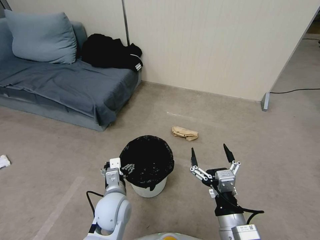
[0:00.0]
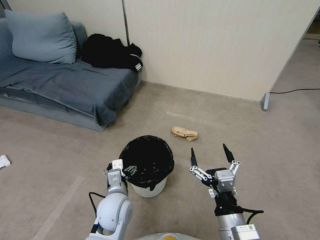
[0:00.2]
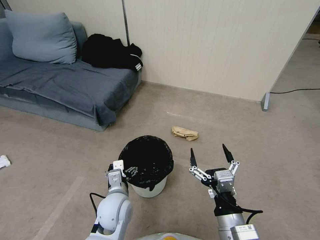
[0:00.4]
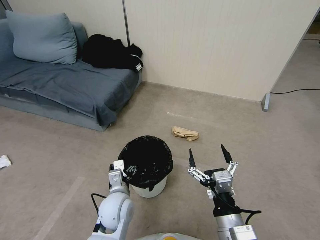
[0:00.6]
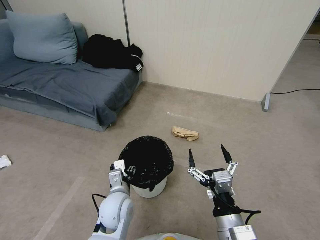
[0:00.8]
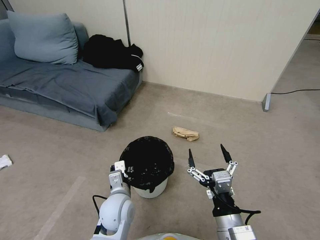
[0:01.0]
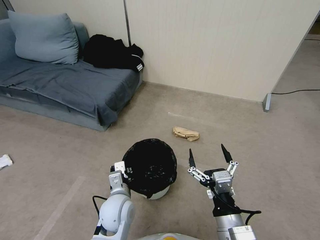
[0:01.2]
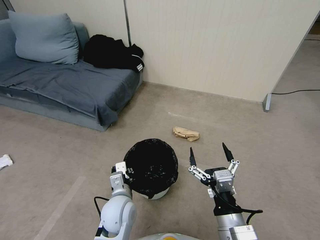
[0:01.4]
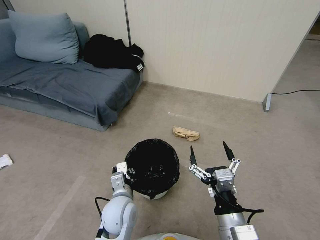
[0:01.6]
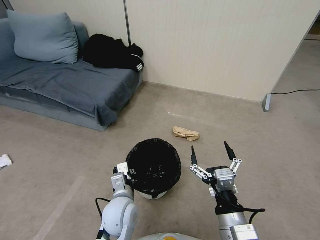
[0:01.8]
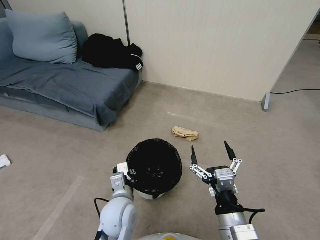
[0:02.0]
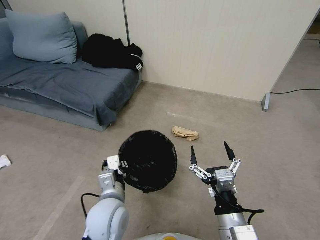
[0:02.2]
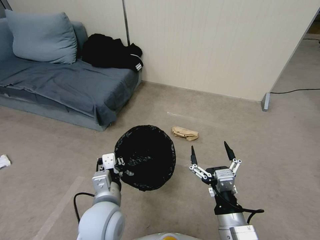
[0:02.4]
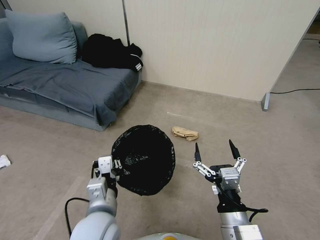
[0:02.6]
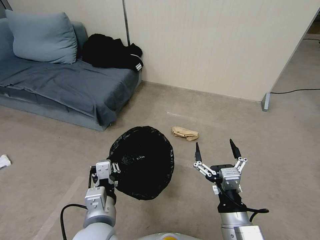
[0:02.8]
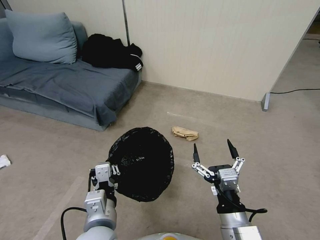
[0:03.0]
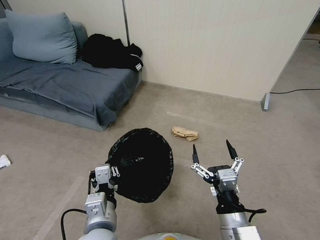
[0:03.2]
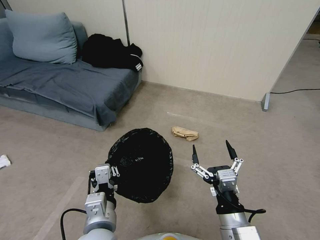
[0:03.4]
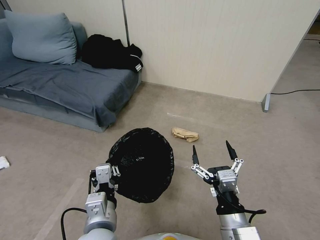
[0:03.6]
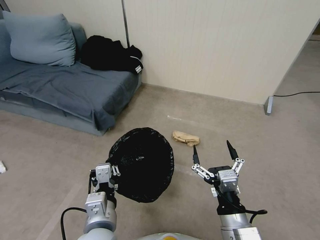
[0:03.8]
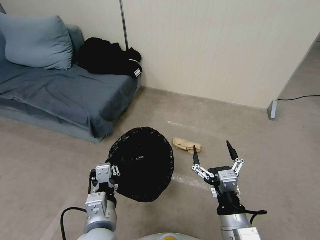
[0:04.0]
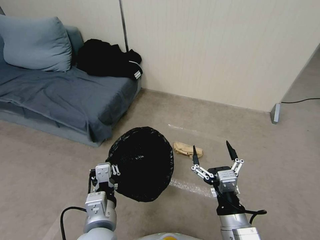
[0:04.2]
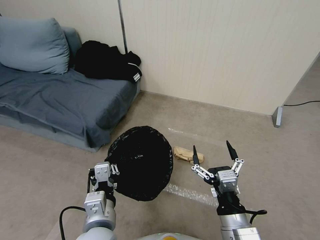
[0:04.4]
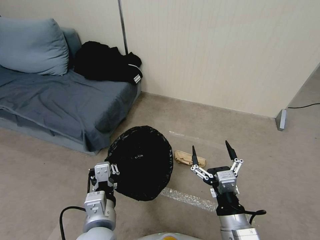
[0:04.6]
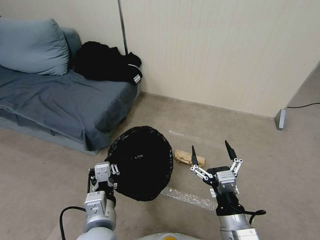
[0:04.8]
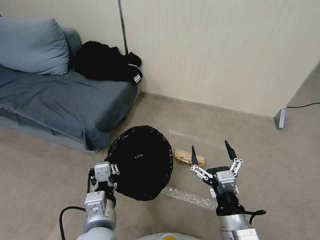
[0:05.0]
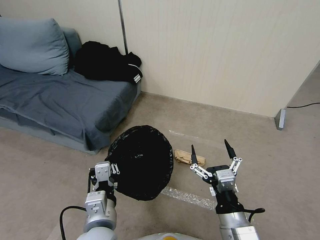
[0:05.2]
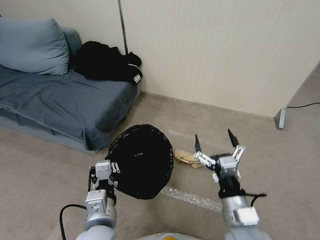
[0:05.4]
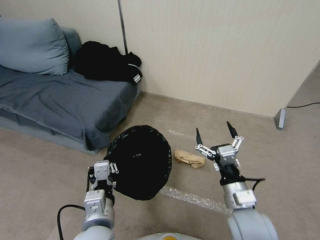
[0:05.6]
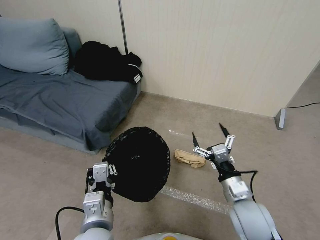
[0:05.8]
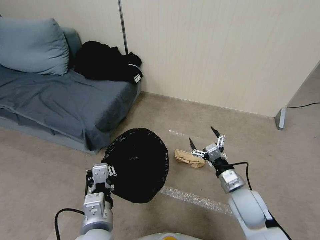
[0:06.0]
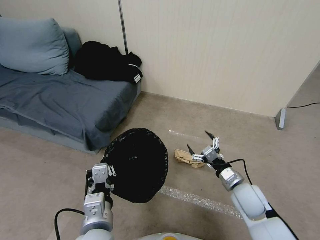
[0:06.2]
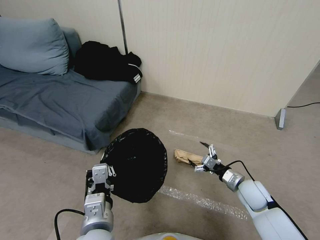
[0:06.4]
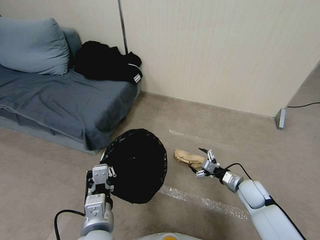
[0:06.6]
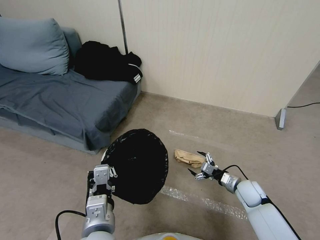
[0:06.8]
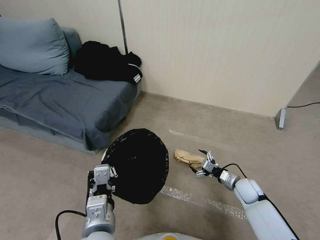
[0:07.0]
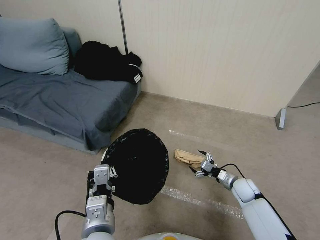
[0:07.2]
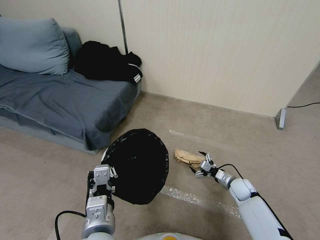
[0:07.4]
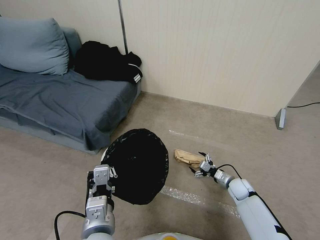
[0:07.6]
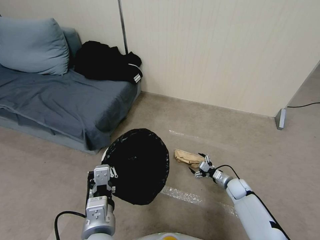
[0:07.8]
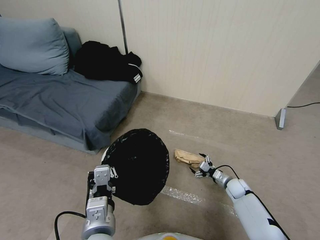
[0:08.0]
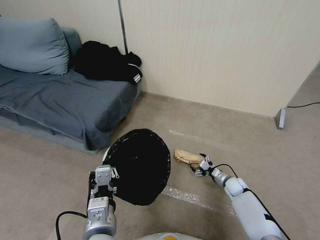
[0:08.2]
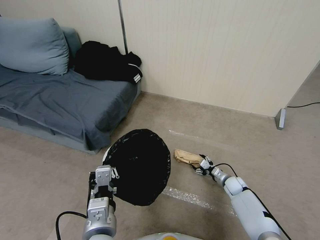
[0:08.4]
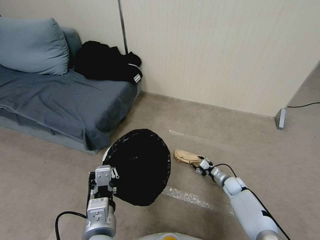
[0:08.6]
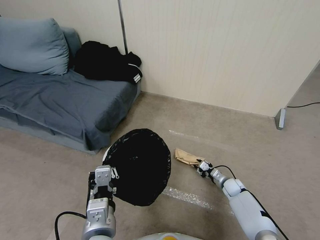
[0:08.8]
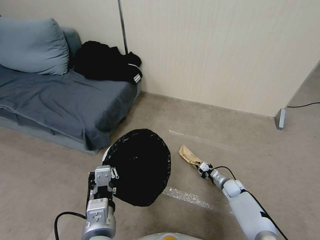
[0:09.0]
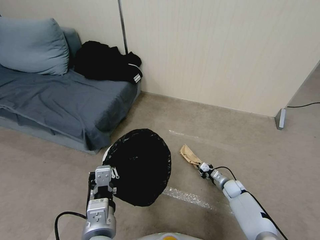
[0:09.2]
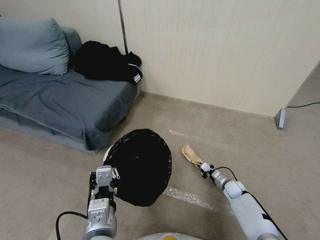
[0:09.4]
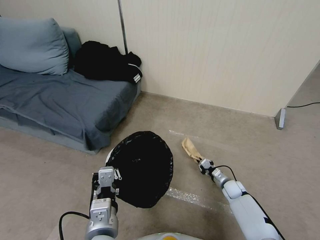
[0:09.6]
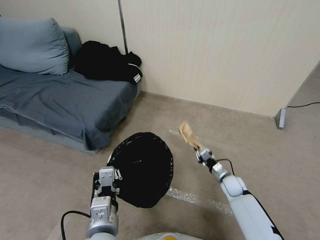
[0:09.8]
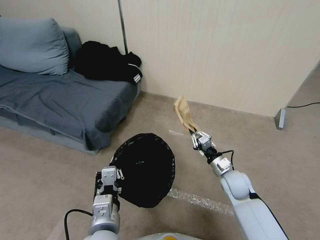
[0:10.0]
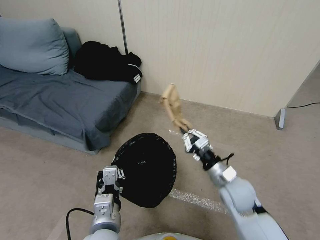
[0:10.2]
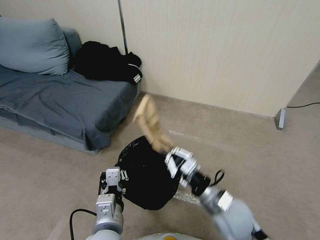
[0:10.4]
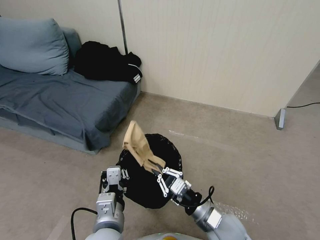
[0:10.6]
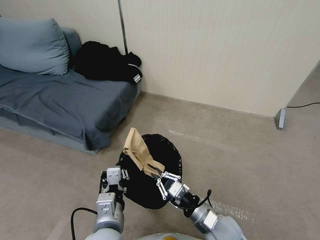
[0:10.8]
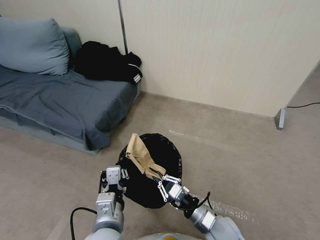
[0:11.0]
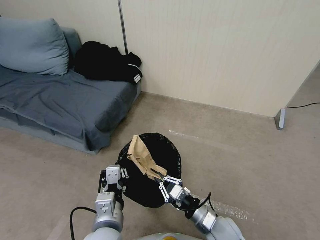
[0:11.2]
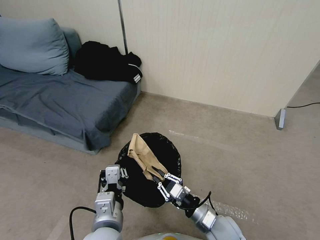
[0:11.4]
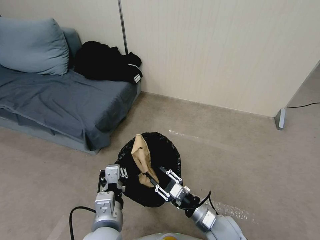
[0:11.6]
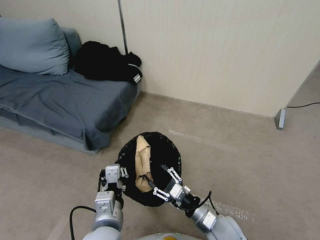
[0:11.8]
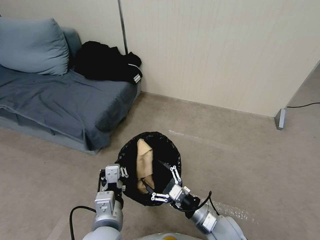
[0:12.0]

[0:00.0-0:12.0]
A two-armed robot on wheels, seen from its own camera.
Task of the whole recording: Pick up the trash bin, then pick up the garbage from the floor and place it into the trash bin.
0:00.0 to 0:01.6: The left gripper closes its fingers.
0:01.6 to 0:03.0: The left gripper goes roughly 15 cm upward and backward.
0:04.4 to 0:06.0: The right gripper moves forward, to the right and downward, approximately 15 cm.
0:06.0 to 0:07.6: The right gripper shifts approximately 25 cm downward, forward and to the right.
0:07.6 to 0:09.0: The right gripper heads downward, covering approximately 5 cm, and closes its fingers.
0:09.0 to 0:10.4: The right gripper moves upward, to the left and backward, about 35 cm.
0:10.4 to 0:12.0: The right gripper heads downward, covering approximately 10 cm, and opens.

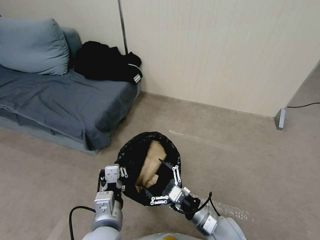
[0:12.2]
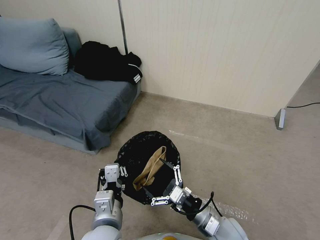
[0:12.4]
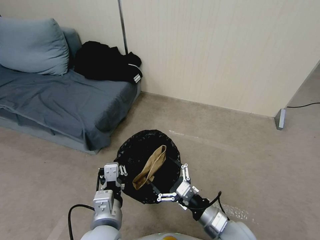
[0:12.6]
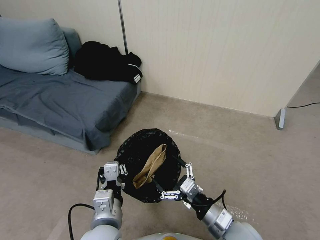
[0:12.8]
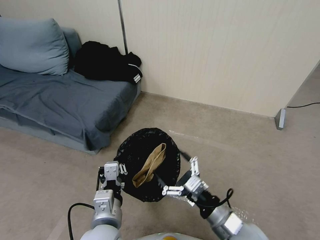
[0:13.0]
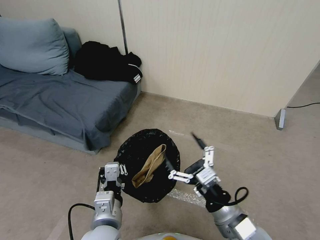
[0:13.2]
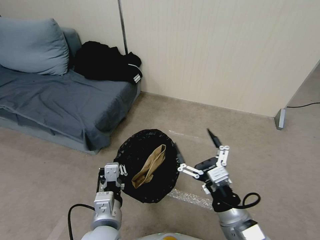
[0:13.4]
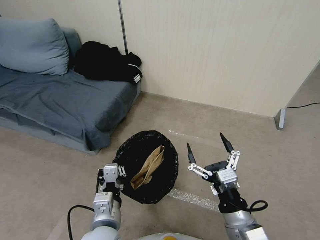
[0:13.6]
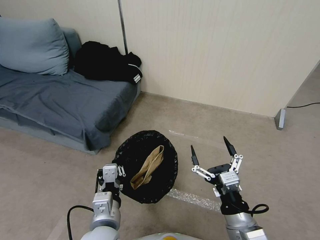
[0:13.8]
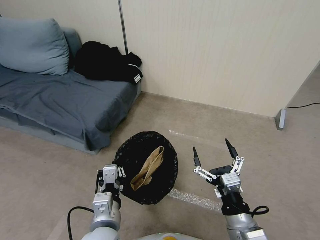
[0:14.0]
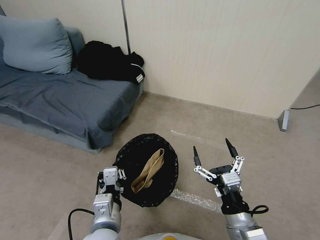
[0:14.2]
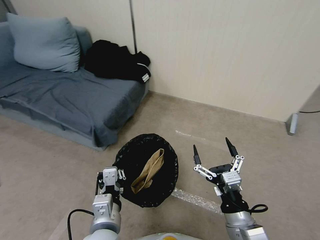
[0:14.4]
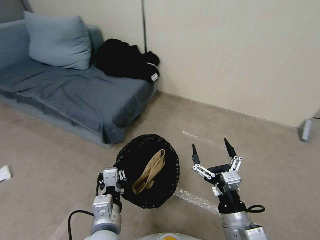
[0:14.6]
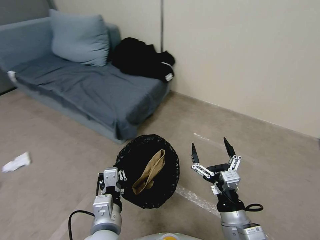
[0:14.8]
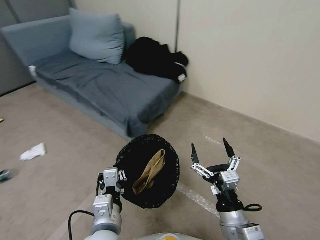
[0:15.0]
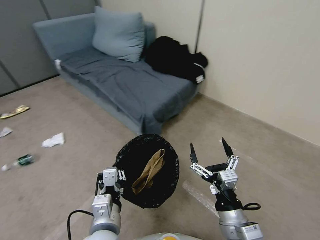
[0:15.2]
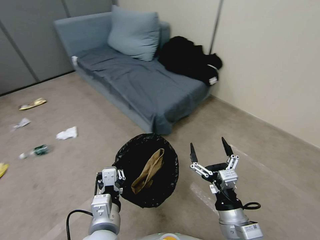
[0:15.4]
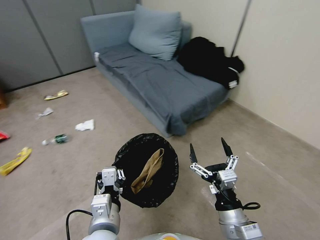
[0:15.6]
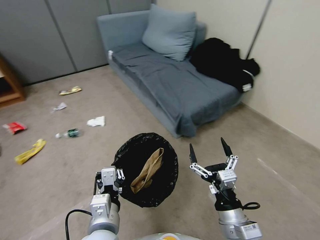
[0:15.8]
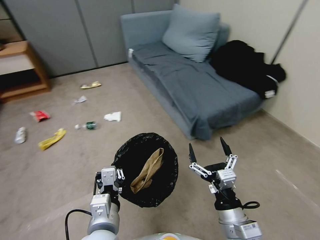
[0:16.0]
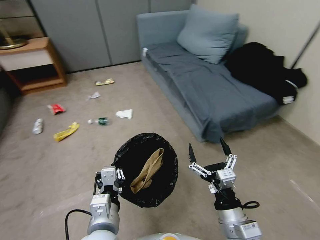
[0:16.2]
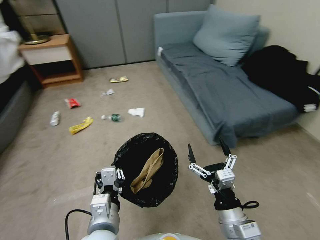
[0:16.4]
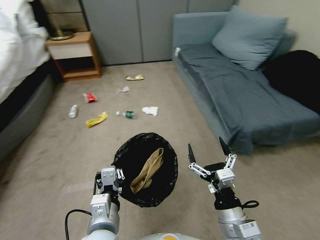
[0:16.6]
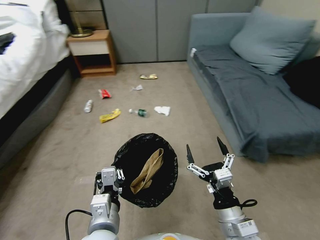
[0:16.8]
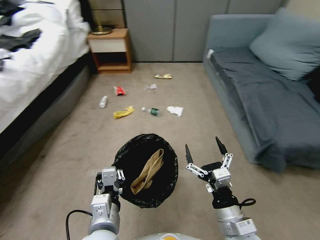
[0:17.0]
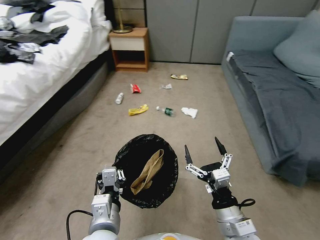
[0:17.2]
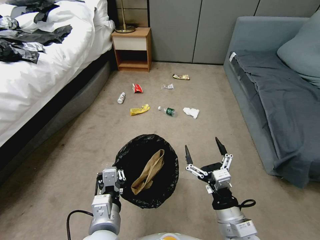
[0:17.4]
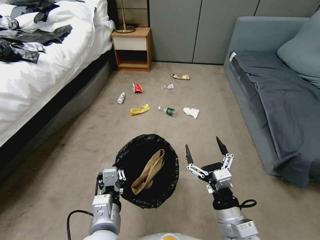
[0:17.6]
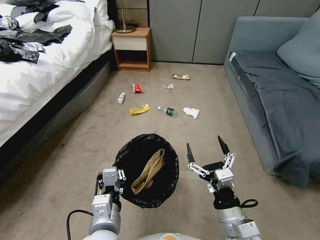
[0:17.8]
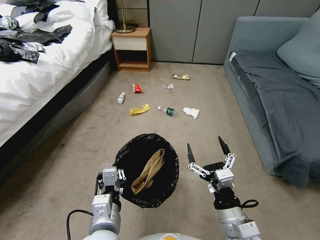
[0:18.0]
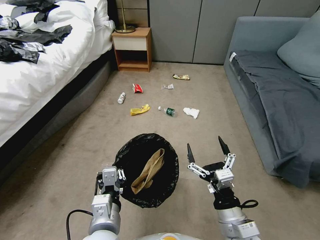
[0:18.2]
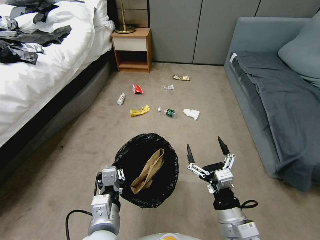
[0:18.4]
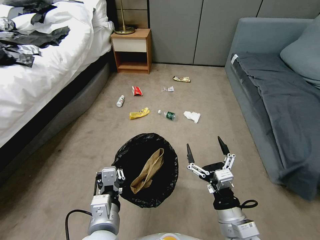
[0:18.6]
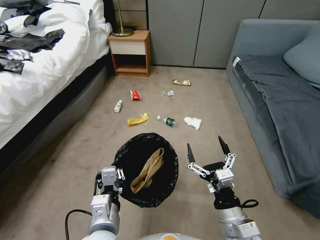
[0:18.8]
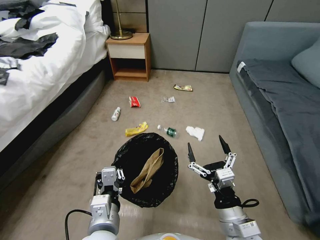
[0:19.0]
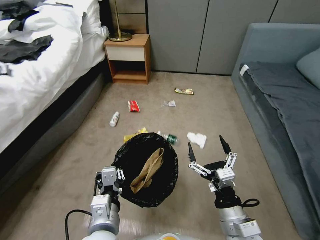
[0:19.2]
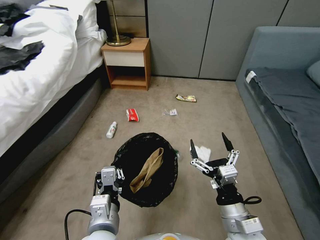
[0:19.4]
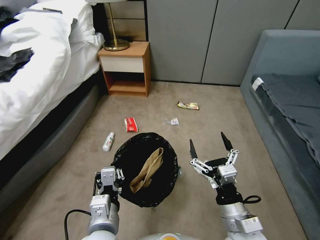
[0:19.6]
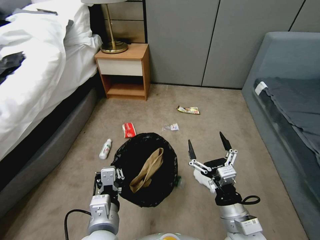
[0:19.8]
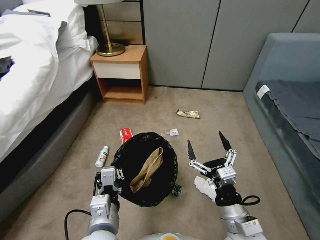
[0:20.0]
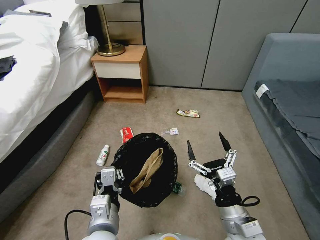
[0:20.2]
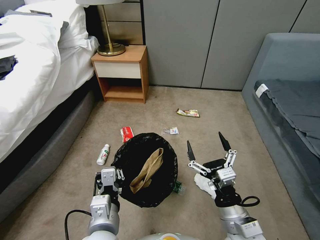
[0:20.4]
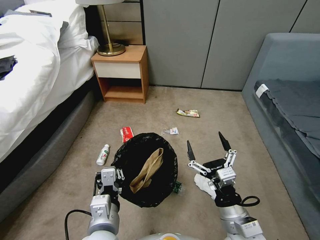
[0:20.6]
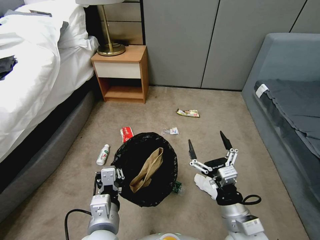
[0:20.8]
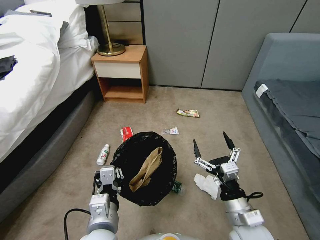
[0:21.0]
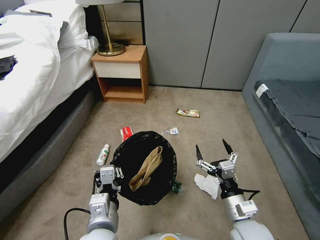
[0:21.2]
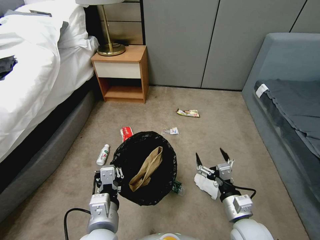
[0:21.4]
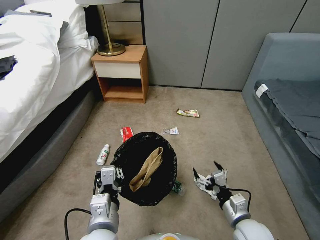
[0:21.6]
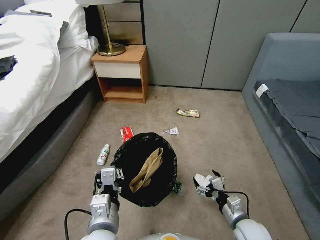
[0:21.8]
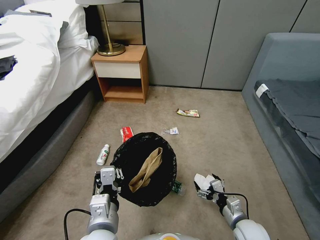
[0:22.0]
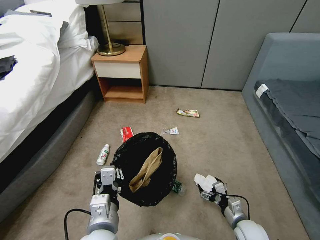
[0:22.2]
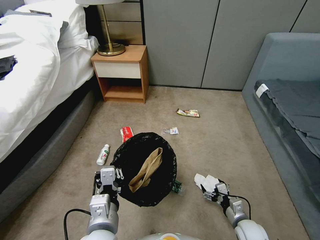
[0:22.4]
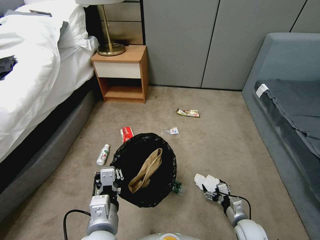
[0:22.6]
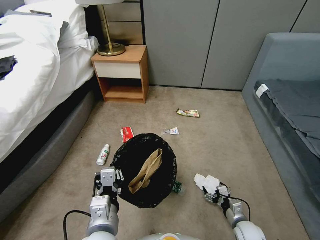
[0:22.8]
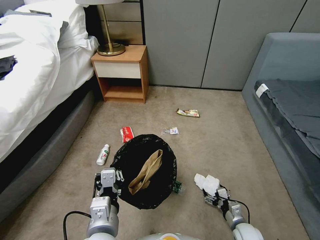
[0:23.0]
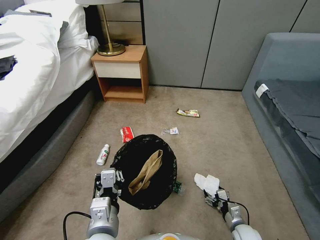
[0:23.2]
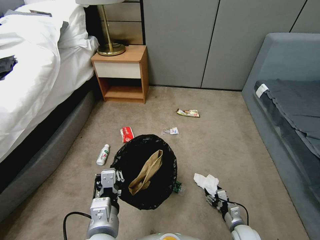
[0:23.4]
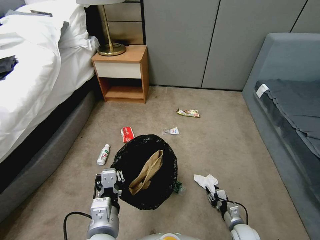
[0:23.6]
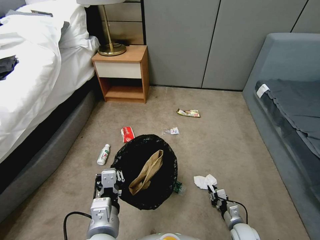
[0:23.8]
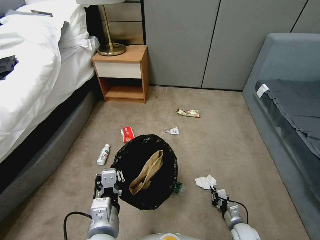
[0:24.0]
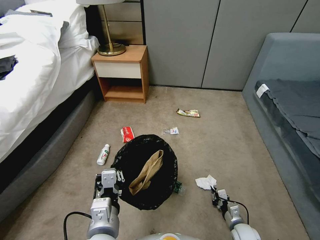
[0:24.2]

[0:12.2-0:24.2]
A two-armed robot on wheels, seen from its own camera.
Task of the whole recording: Pick up the trash bin, then pick up the garbage from the floor and place it into the trash bin.
0:12.2 to 0:13.8: The right gripper heads upward and backward, covering approximately 10 cm.
0:19.8 to 0:21.2: The grippers stay close to where they were, moving slightly.
0:21.2 to 0:22.6: The right gripper heads downward and to the right, covering approximately 20 cm.
0:22.6 to 0:24.2: The right gripper goes approximately 5 cm downward, and closes its fingers.
